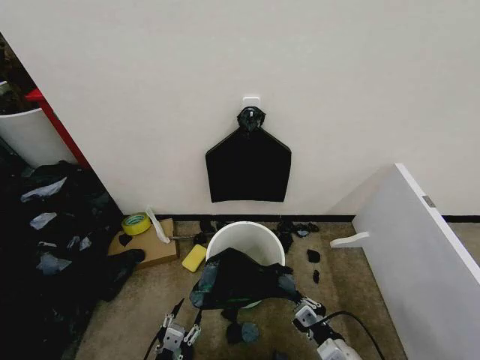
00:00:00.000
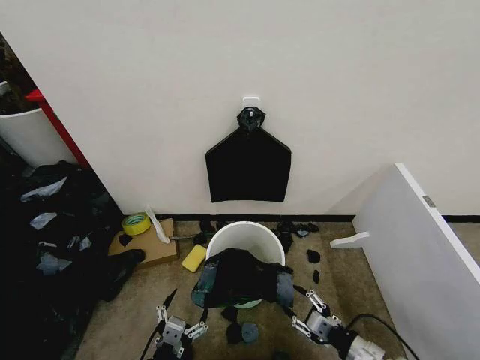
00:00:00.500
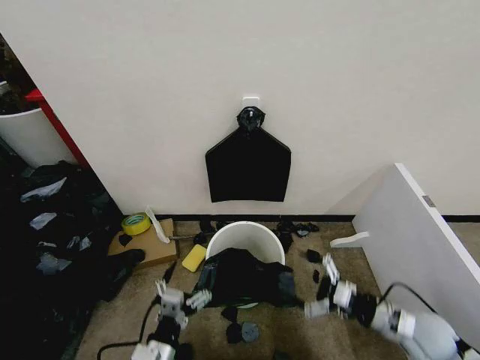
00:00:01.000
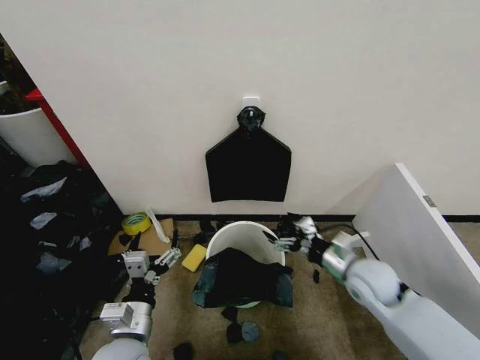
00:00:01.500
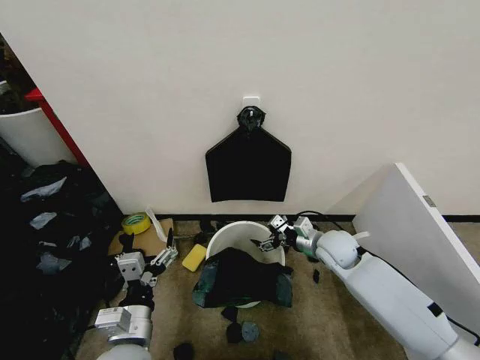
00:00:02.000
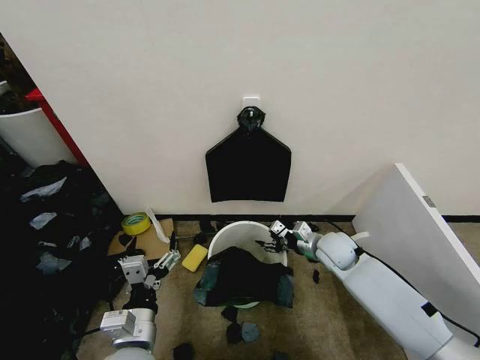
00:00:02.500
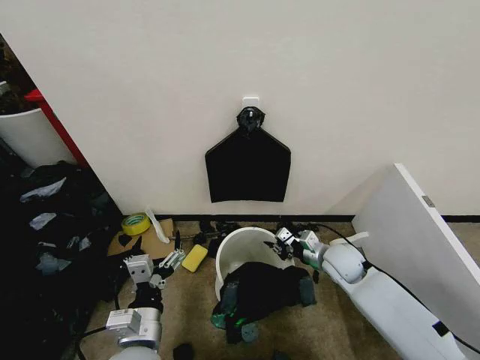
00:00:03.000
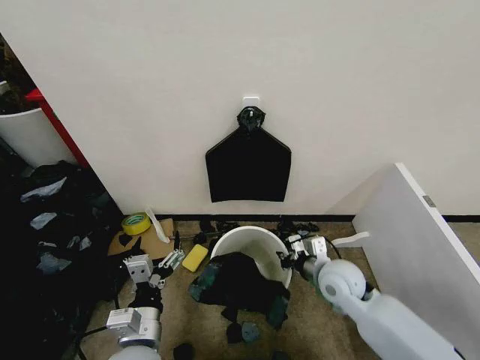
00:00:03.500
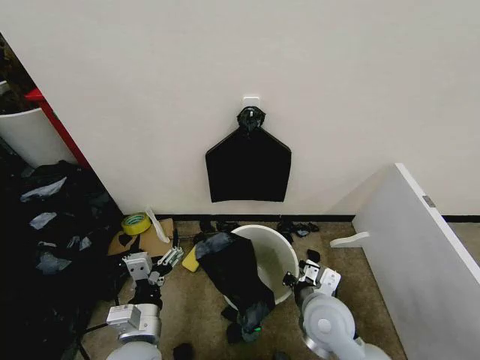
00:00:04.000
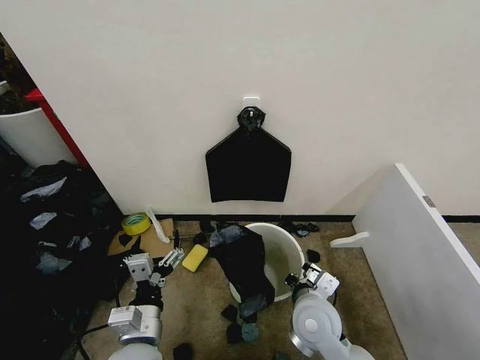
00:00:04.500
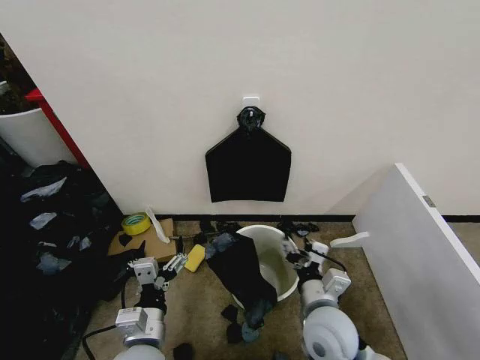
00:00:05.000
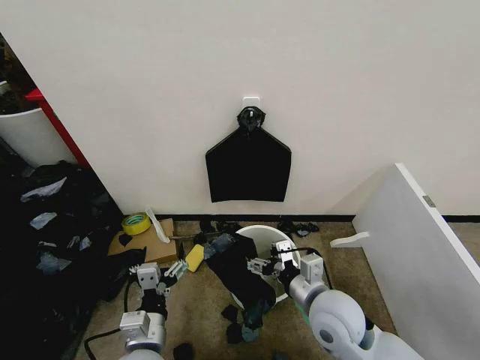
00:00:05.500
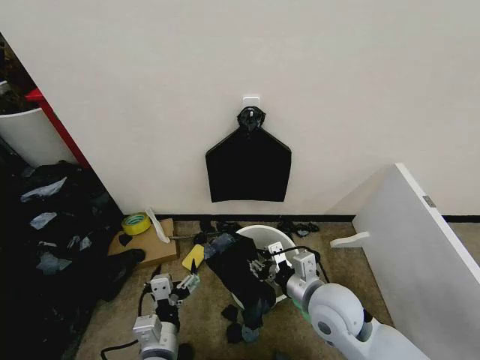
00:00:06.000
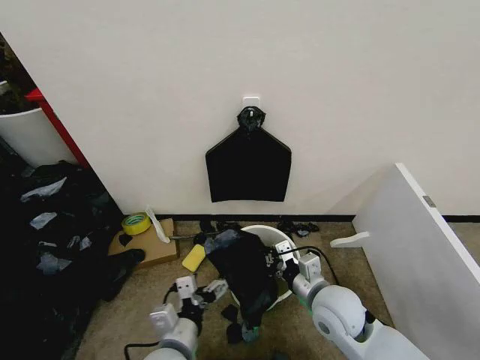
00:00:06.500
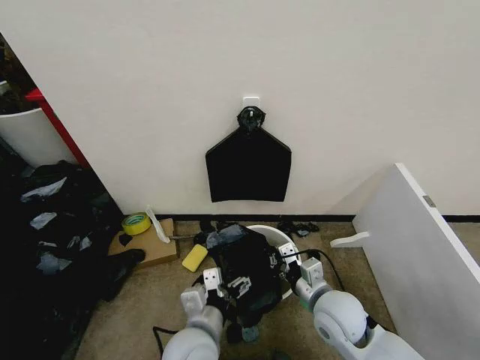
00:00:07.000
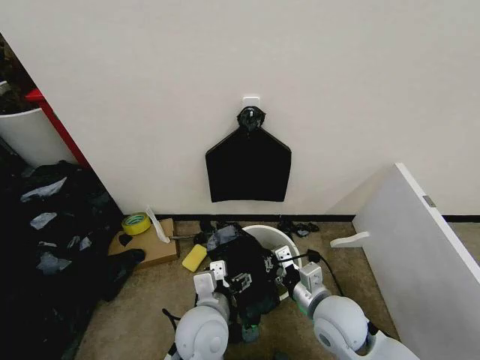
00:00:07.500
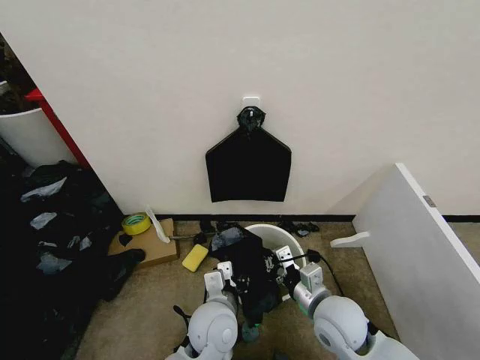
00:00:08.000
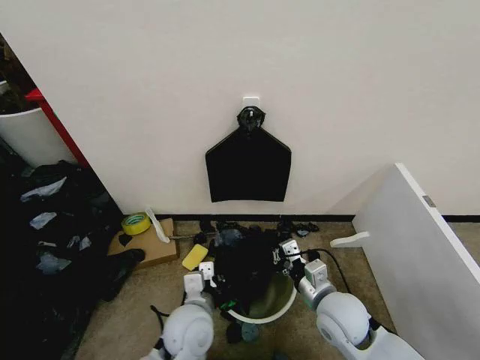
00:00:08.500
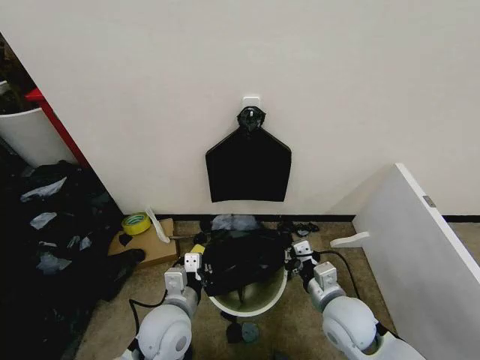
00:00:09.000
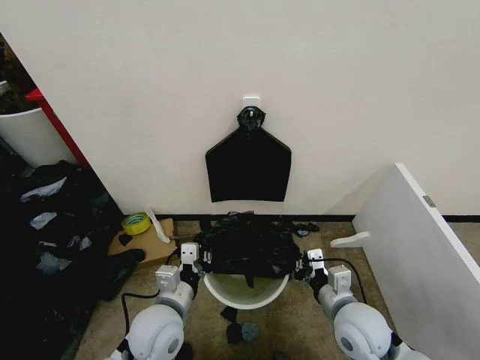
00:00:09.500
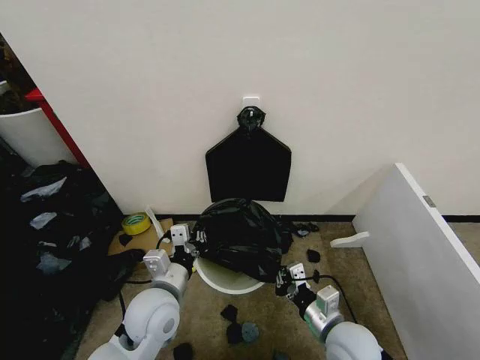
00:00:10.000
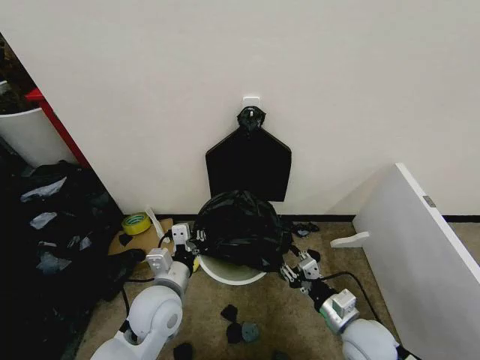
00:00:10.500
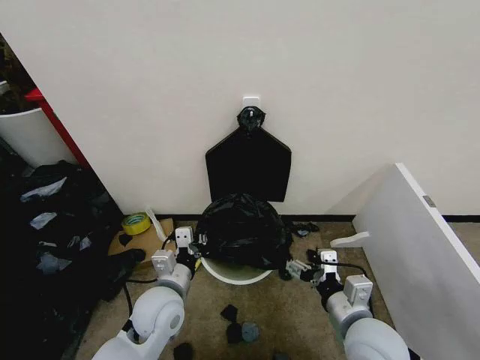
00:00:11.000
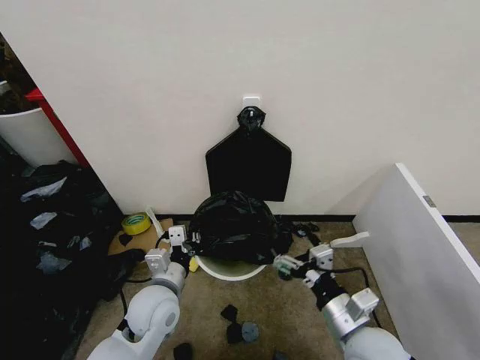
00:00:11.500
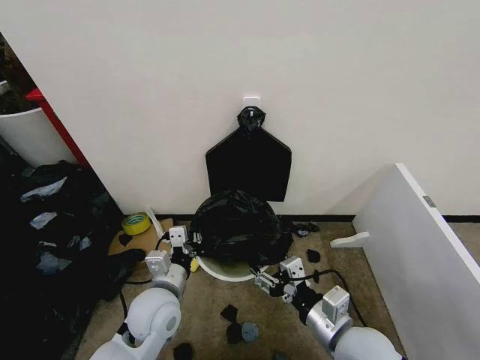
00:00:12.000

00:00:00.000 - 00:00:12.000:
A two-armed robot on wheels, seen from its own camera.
Task of the whole recording: Place the garbage bag over the trash bin.
00:00:00.000 - 00:00:02.000: The right gripper heads forward, covering approximately 30 cm, and opens its fingers. The left gripper travels upward and forward by some 15 cm, and opens up.
00:00:02.000 - 00:00:04.000: The right gripper heads backward and to the left, covering roughly 20 cm, and closes.
00:00:04.000 - 00:00:06.000: The right gripper opens up.
00:00:06.000 - 00:00:08.000: The left gripper heads to the right and forward, covering about 15 cm, and closes up; the right gripper closes up.
00:00:08.000 - 00:00:10.000: The right gripper shifts by approximately 5 cm, while the left gripper moves to the left, roughly 10 cm, and closes its fingers.
00:00:10.000 - 00:00:12.000: The right gripper shifts some 10 cm upward, and opens its fingers.

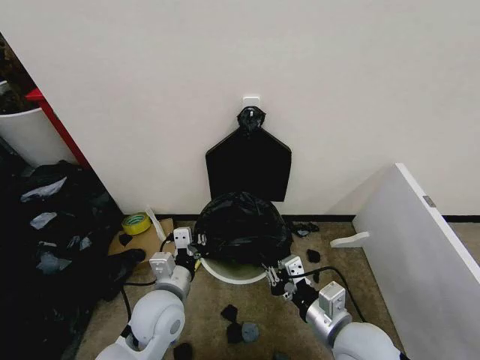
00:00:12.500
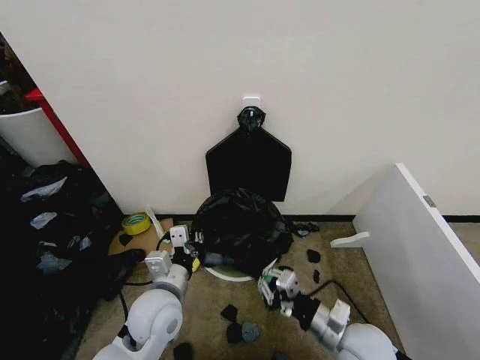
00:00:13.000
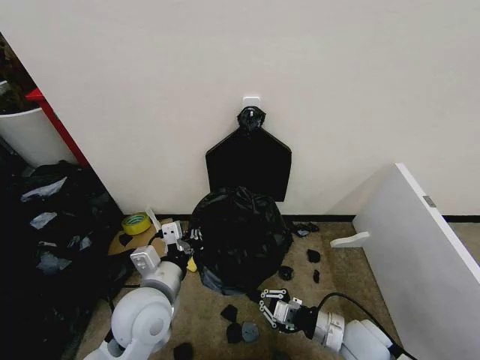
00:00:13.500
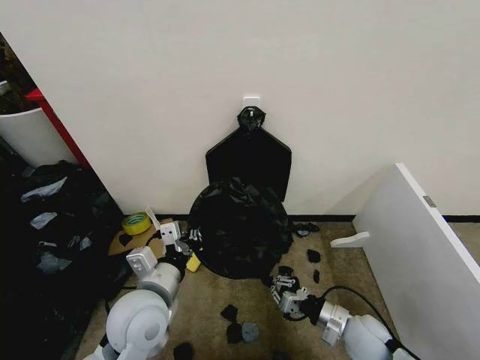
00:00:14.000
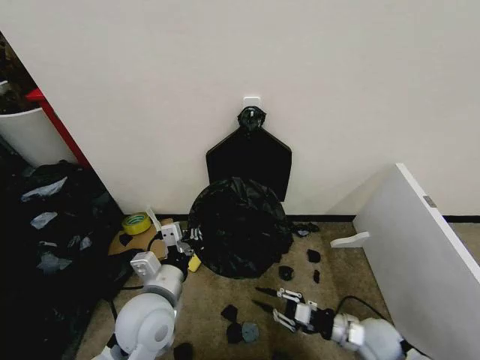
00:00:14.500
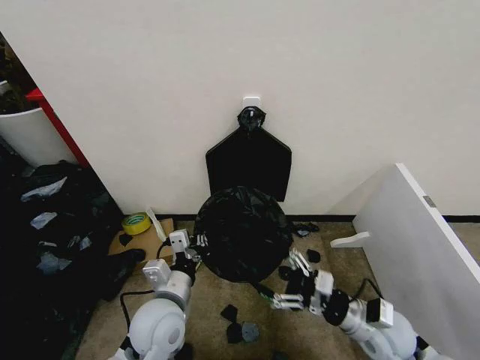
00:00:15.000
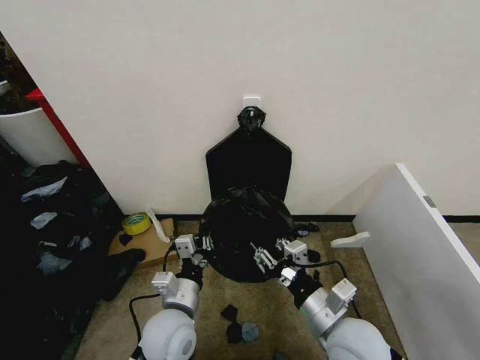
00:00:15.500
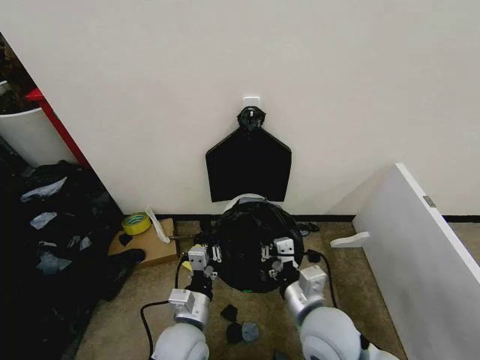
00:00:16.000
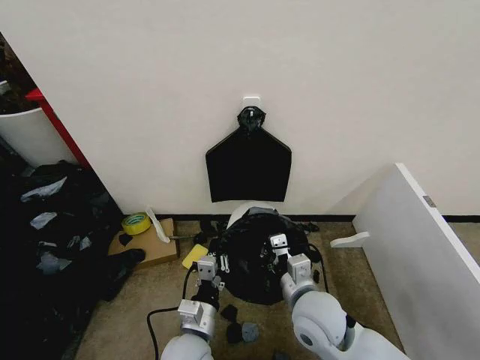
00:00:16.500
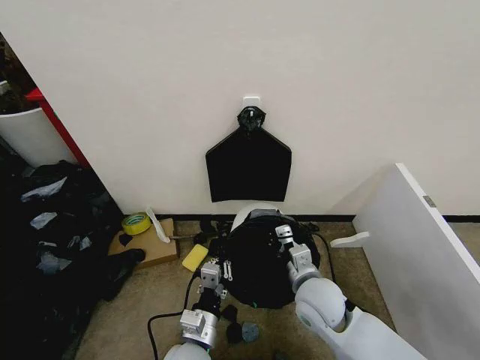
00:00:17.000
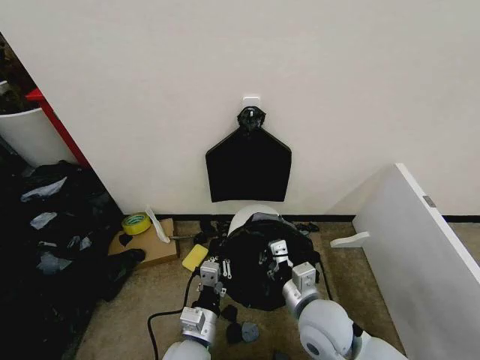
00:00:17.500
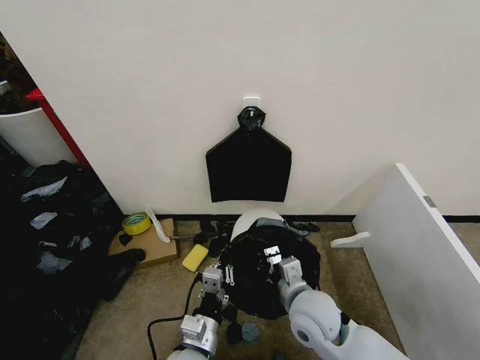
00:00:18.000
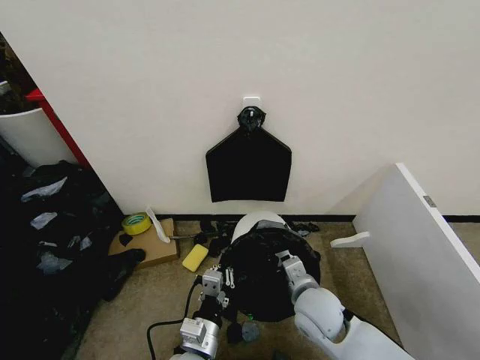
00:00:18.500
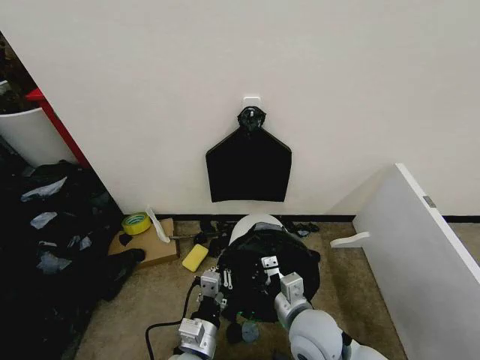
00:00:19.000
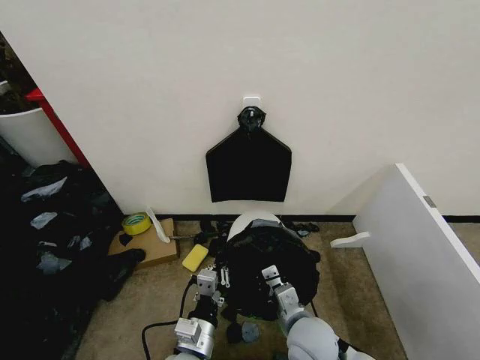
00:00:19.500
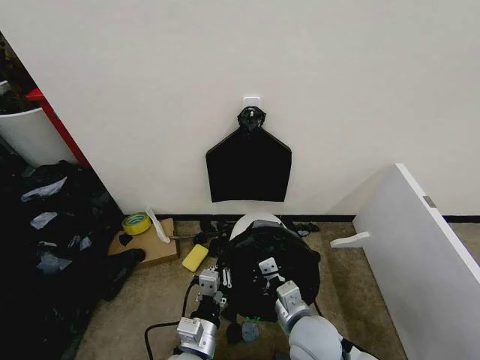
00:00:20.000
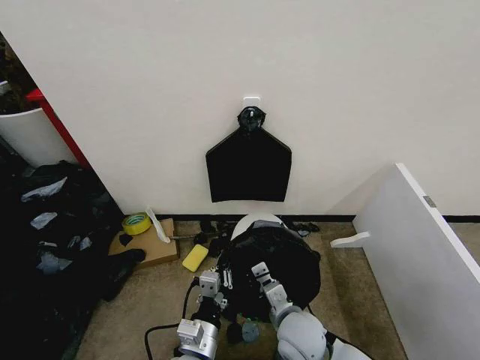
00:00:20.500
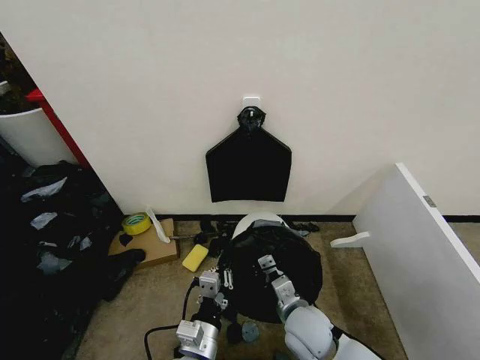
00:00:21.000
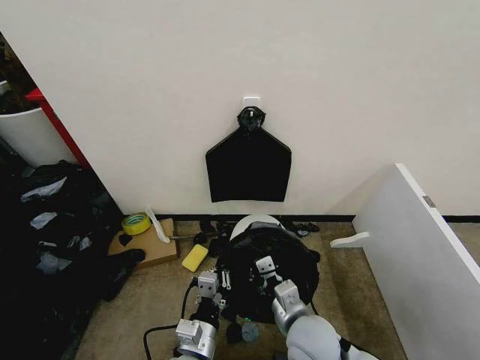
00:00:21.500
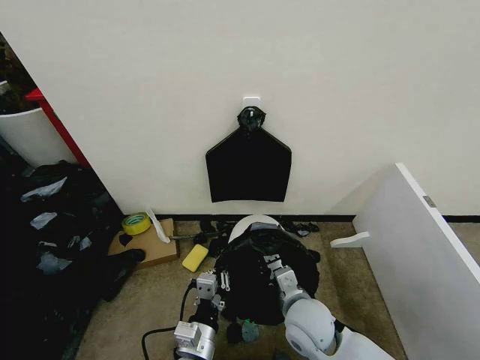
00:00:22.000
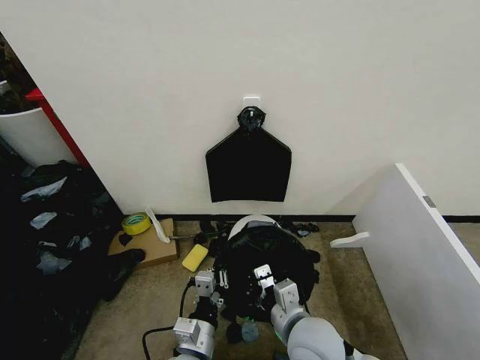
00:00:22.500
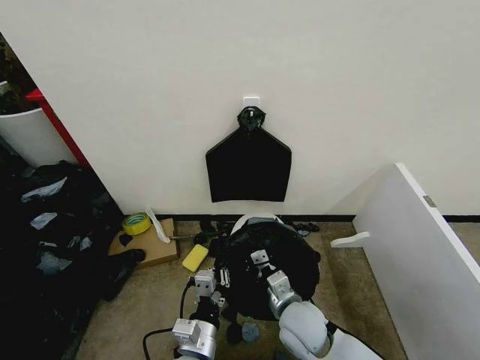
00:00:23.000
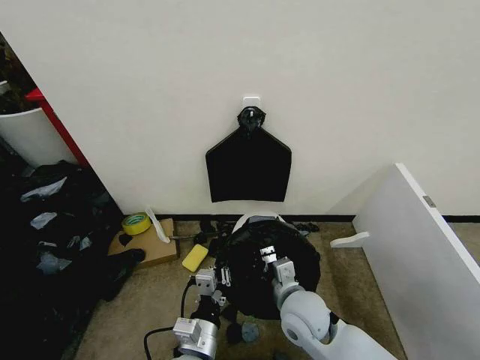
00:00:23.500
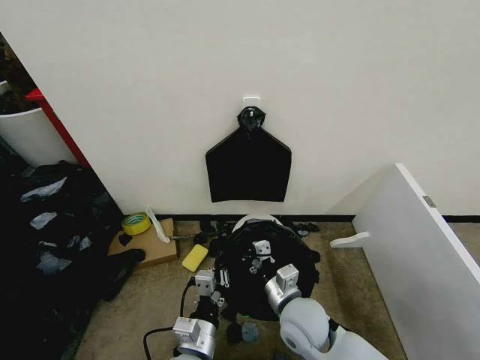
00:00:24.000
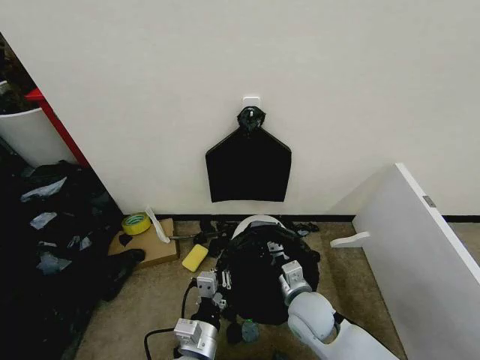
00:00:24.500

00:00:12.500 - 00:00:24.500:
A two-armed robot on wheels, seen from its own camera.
Task of the whole recording: Place the garbage bag over the trash bin.
00:00:12.500 - 00:00:14.500: The right gripper shifts roughly 20 cm downward and to the right.
00:00:14.500 - 00:00:16.500: The left gripper goes approximately 15 cm downward and to the right; the right gripper travels to the left and upward by approximately 20 cm, and opens and closes again.
00:00:16.500 - 00:00:18.500: The grippers move only a little.
00:00:18.500 - 00:00:20.500: The right gripper moves some 5 cm.
00:00:20.500 - 00:00:22.500: The right gripper heads upward, covering about 5 cm.
00:00:22.500 - 00:00:24.500: The right gripper goes about 10 cm forward and downward.

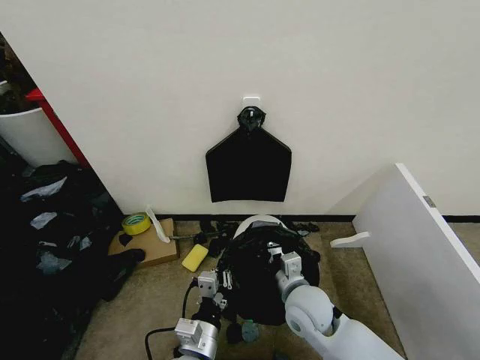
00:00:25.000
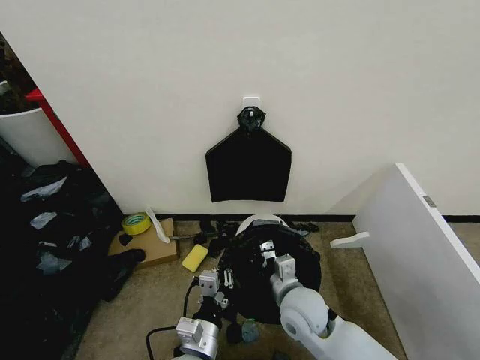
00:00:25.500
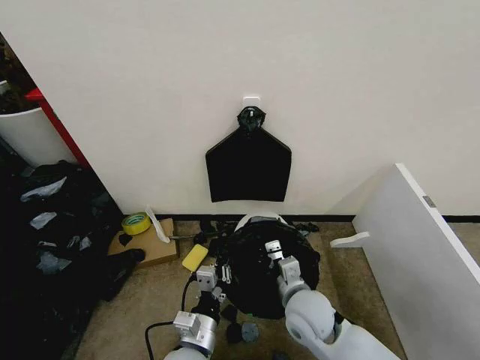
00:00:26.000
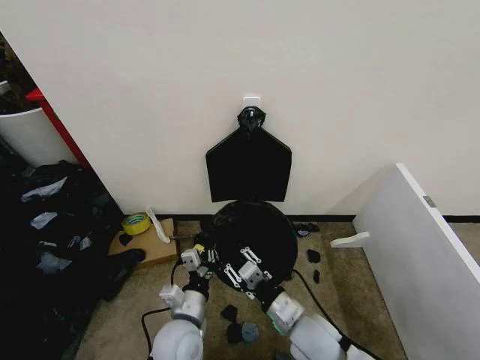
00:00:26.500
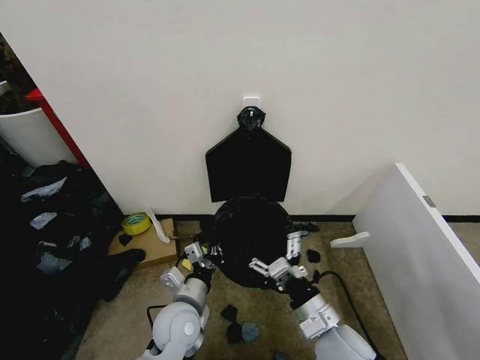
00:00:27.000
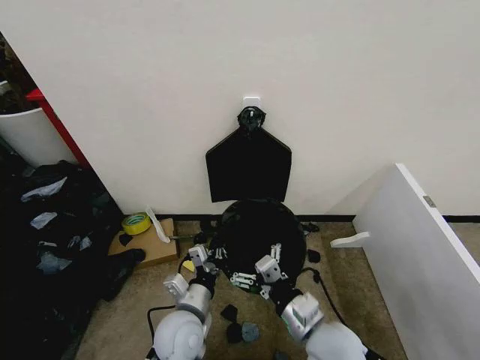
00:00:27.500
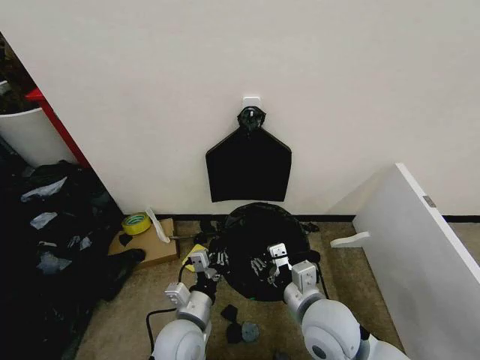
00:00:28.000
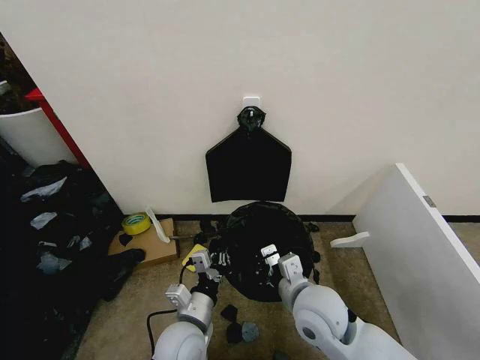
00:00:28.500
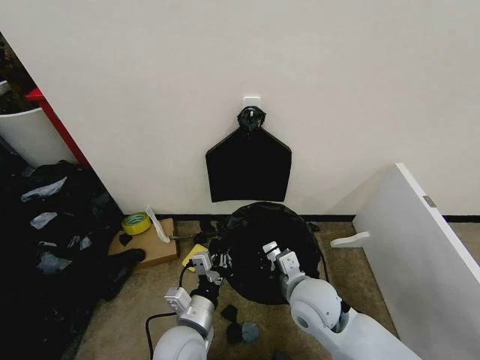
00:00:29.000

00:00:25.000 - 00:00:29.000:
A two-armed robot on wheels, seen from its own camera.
Task of the whole recording: Place the garbage bag over the trash bin.
00:00:25.000 - 00:00:27.000: The left gripper is displaced forward by some 10 cm, while the right gripper is displaced backward by some 10 cm, and opens up.
00:00:27.000 - 00:00:29.000: The right gripper travels forward by roughly 10 cm, and closes its fingers. Meanwhile the left gripper moves approximately 5 cm.
